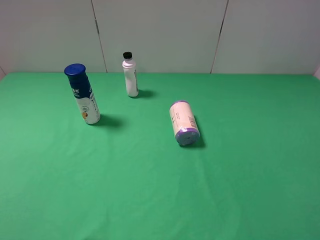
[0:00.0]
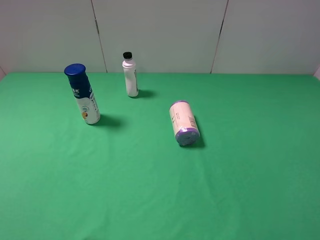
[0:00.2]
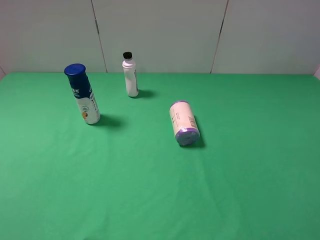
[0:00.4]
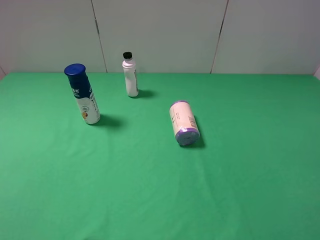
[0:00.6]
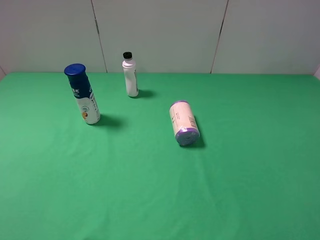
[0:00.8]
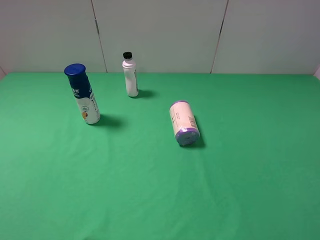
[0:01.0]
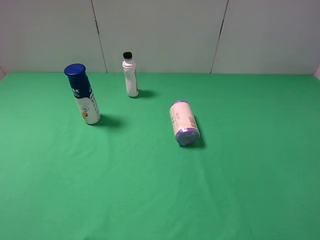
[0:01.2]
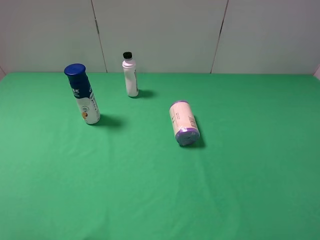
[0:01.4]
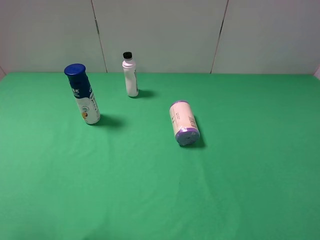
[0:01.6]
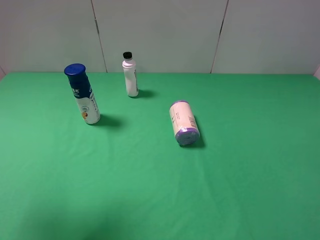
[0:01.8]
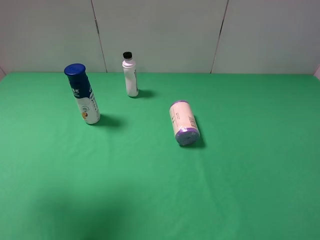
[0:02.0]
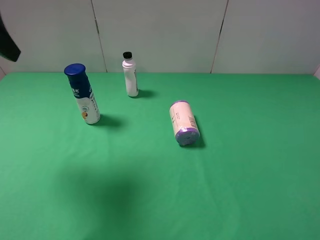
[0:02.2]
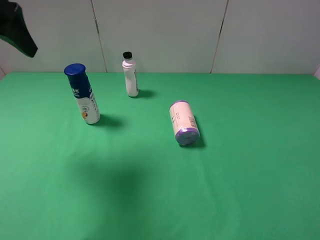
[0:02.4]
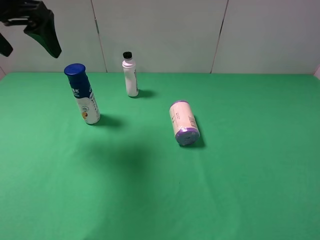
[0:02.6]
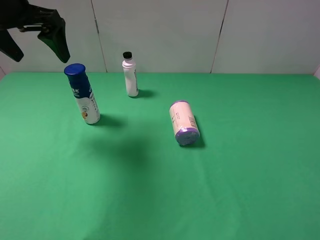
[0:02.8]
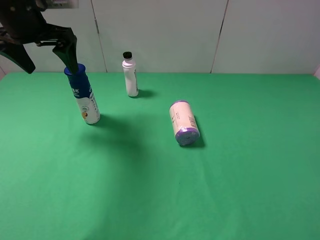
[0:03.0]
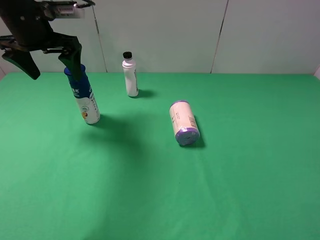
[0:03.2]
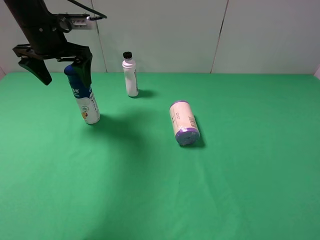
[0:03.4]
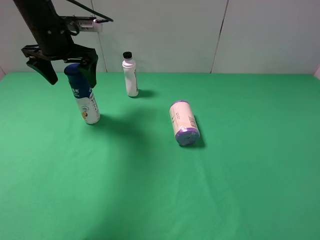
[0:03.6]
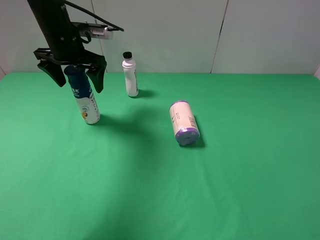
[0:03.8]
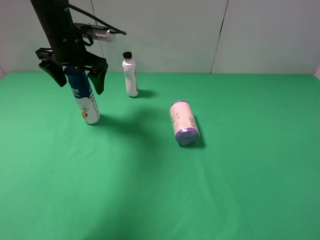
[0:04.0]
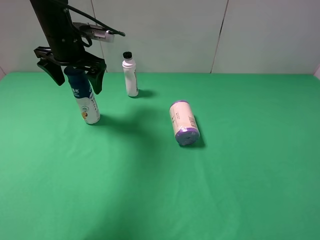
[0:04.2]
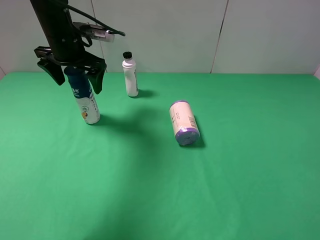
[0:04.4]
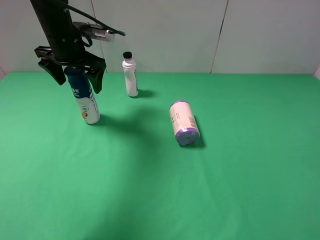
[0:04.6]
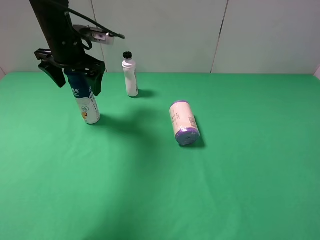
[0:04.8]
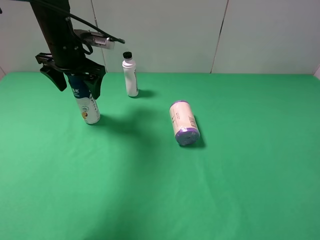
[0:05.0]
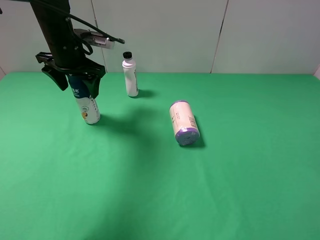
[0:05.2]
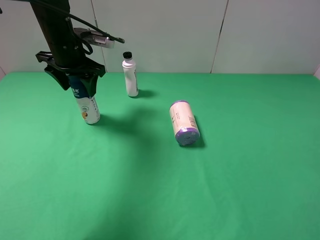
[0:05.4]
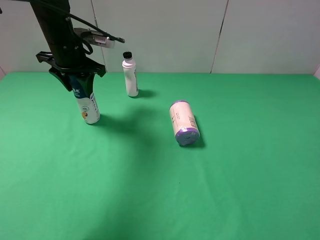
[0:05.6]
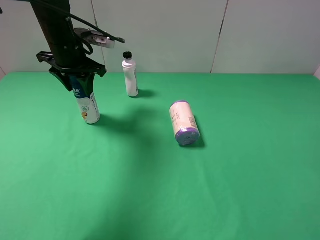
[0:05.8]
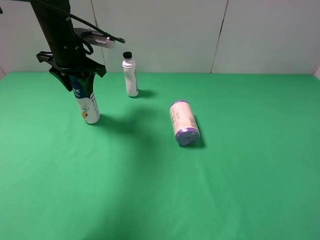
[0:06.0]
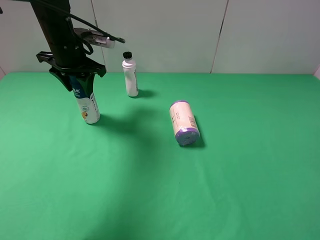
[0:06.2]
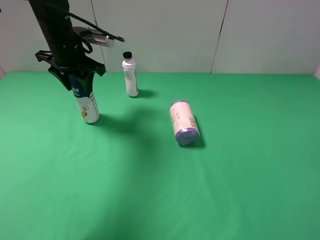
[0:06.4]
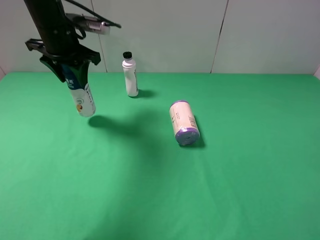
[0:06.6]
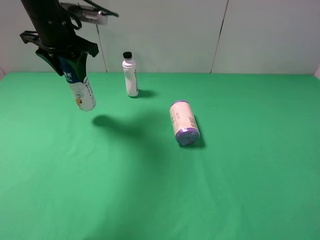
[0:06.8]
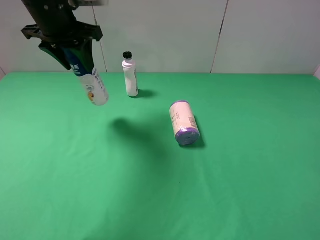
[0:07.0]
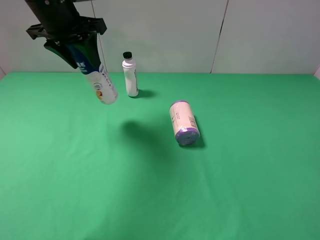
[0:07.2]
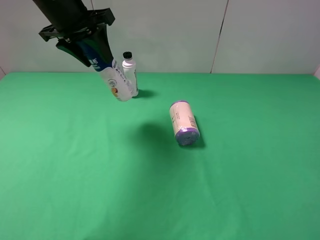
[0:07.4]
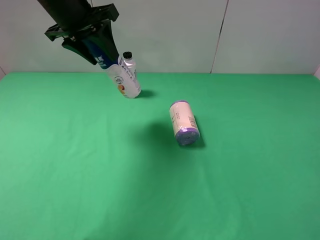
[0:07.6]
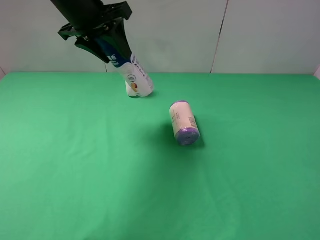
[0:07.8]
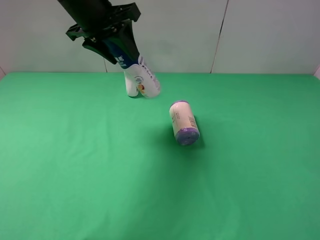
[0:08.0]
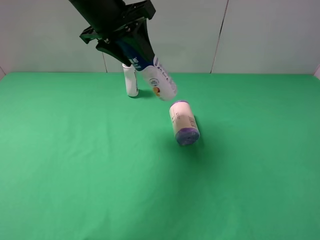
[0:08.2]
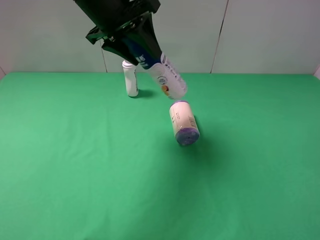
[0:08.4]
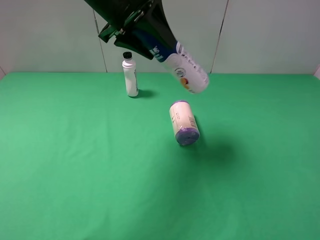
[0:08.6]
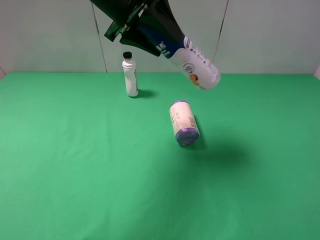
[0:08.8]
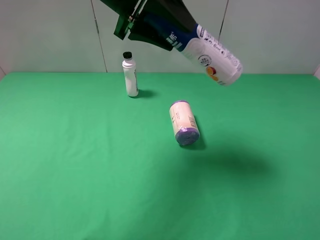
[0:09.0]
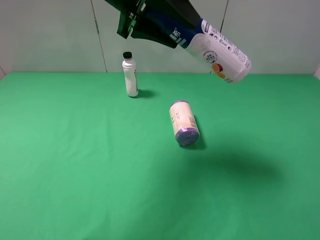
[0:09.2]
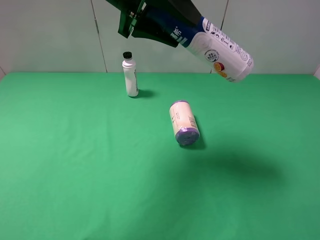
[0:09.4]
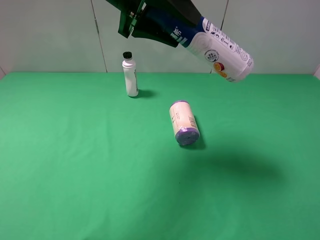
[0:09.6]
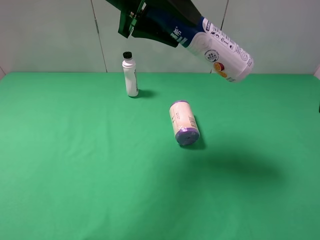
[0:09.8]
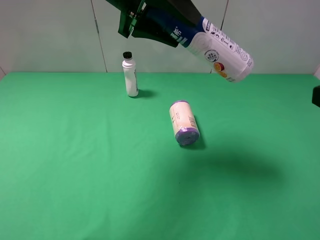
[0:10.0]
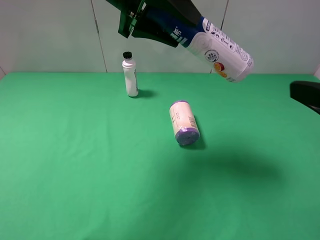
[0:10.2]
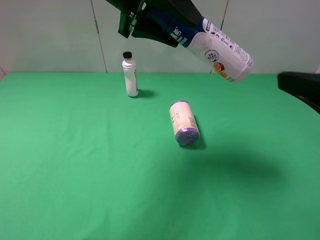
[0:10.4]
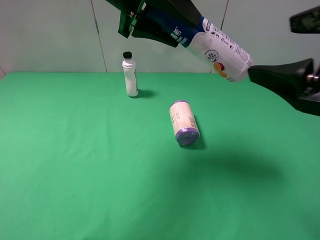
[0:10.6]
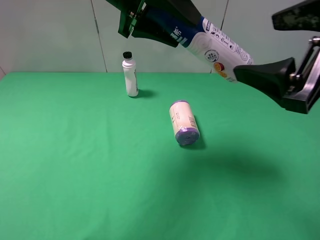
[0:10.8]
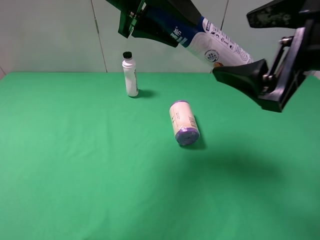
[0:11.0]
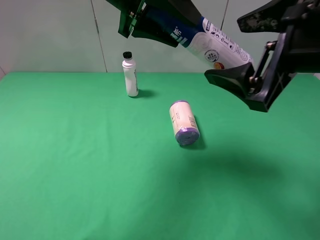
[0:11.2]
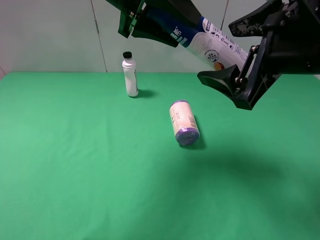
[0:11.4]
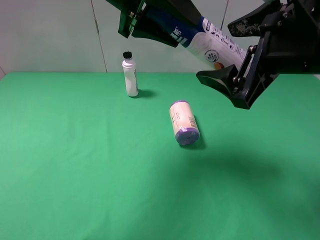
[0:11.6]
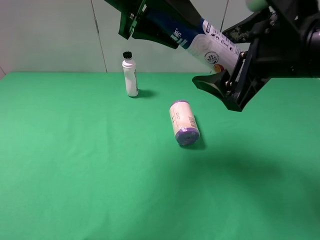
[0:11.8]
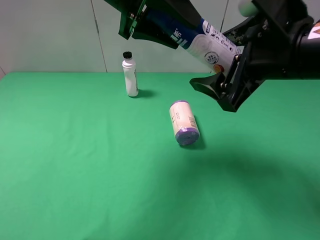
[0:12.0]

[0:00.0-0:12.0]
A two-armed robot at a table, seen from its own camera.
Task of the whole recording: use the left gripper to pick up the item and transfer it from the left gripper to the right gripper.
Step, 0:00.0 to 0:05.6: Use the left gripper to grab the yogurt on the left side of the table.
0:01.6 to 0:03.0: The left gripper moves forward, about 25 cm.
0:03.0 to 0:04.4: The left gripper goes about 5 cm downward.
0:04.4 to 0:06.0: The left gripper closes its fingers.
0:06.0 to 0:07.6: The left gripper shifts roughly 10 cm upward.
0:07.6 to 0:09.0: The left gripper moves to the right, approximately 10 cm.
0:09.0 to 0:10.4: The right gripper moves forward, about 10 cm.
0:10.4 to 0:12.0: The right gripper heads forward and to the left, covering some 10 cm.

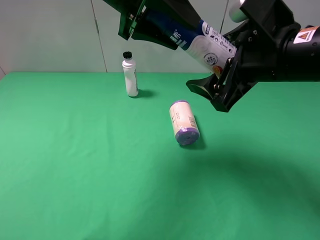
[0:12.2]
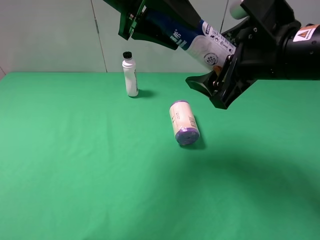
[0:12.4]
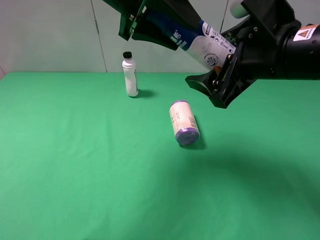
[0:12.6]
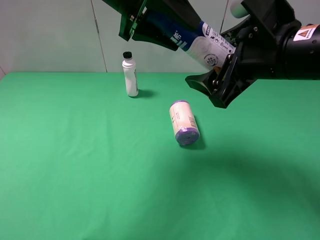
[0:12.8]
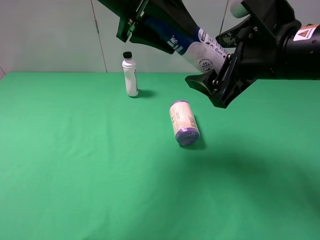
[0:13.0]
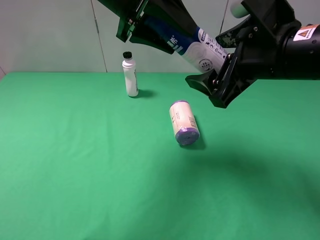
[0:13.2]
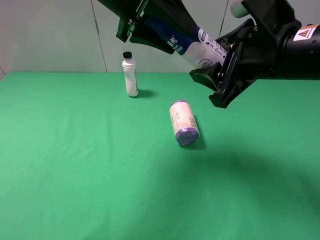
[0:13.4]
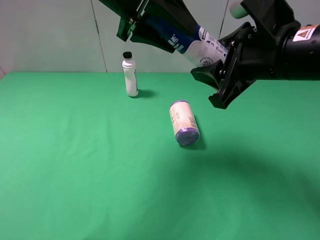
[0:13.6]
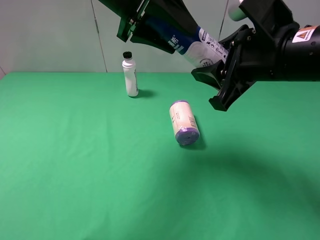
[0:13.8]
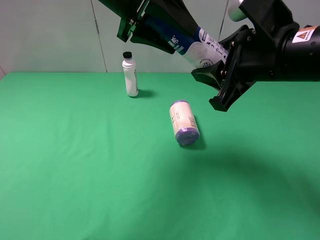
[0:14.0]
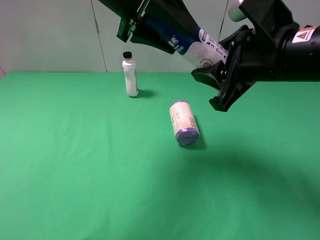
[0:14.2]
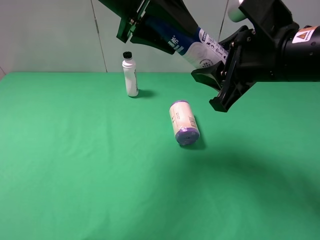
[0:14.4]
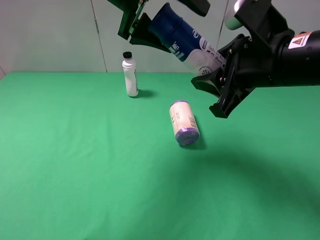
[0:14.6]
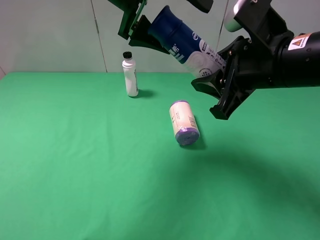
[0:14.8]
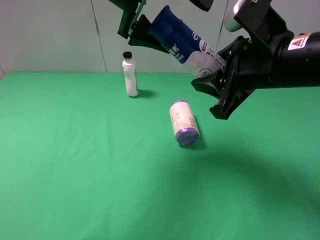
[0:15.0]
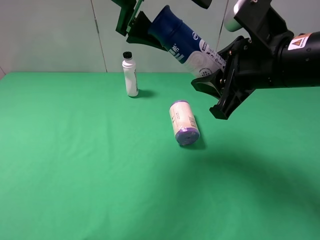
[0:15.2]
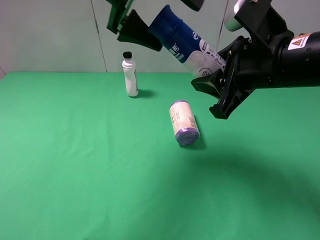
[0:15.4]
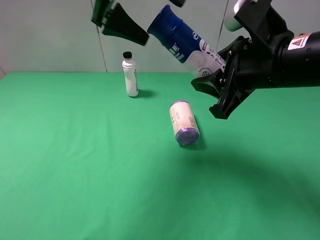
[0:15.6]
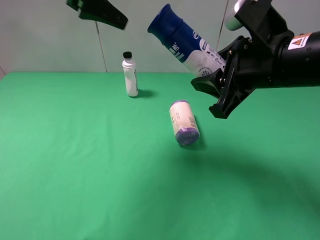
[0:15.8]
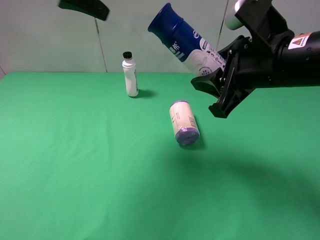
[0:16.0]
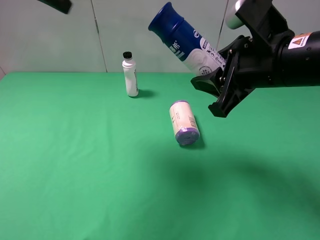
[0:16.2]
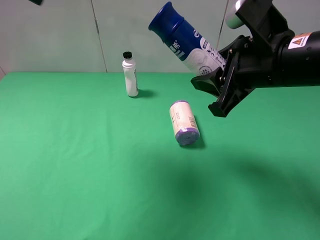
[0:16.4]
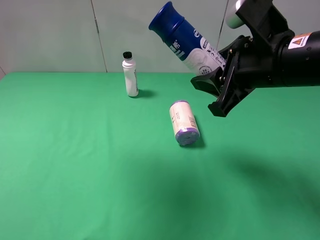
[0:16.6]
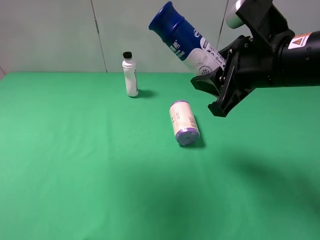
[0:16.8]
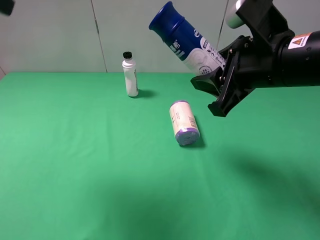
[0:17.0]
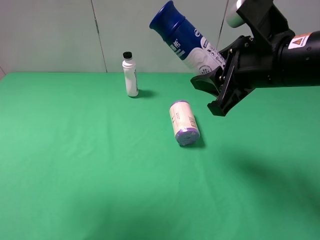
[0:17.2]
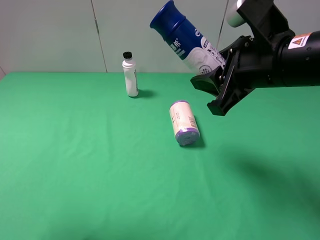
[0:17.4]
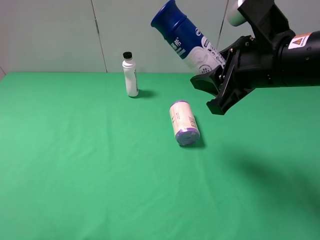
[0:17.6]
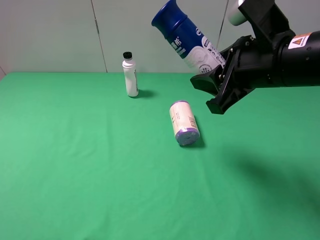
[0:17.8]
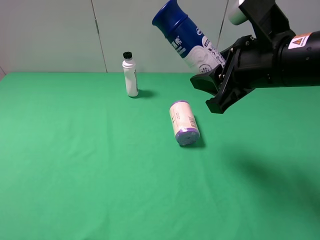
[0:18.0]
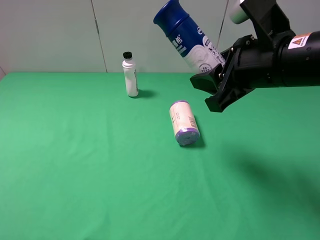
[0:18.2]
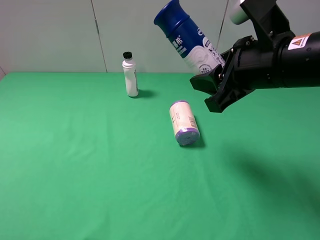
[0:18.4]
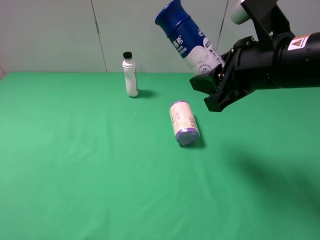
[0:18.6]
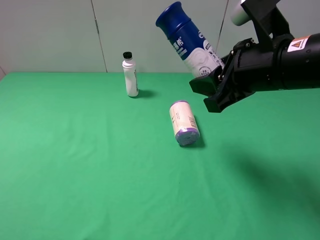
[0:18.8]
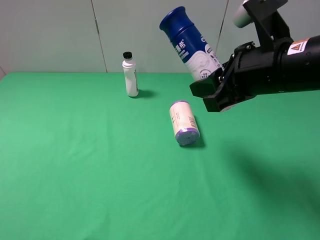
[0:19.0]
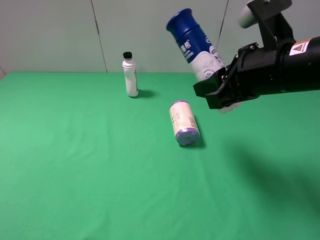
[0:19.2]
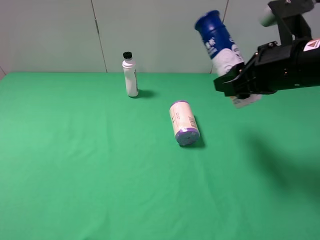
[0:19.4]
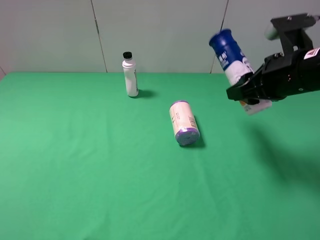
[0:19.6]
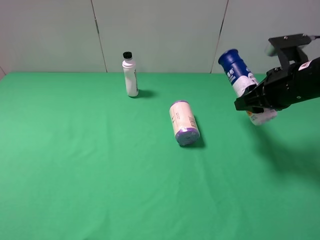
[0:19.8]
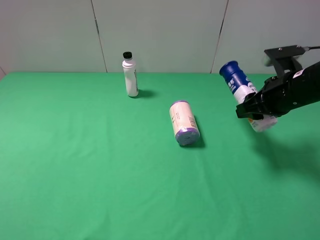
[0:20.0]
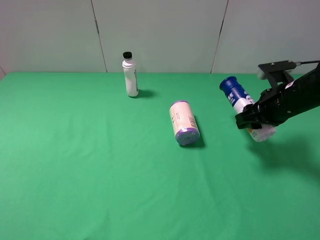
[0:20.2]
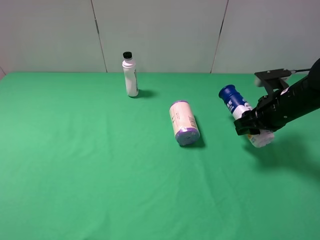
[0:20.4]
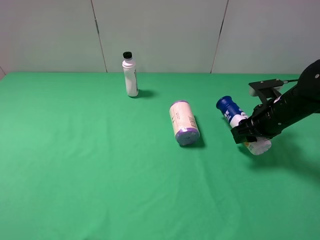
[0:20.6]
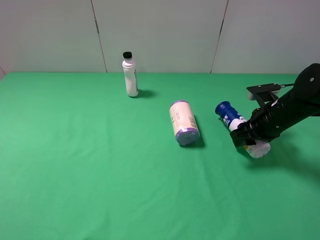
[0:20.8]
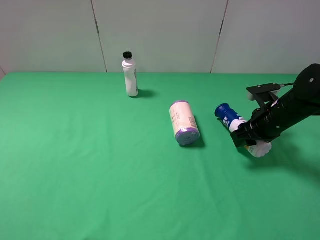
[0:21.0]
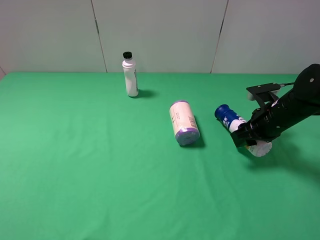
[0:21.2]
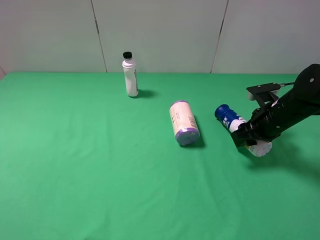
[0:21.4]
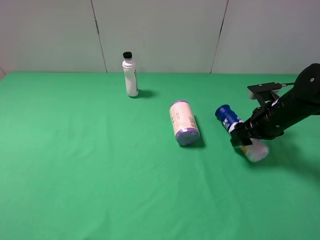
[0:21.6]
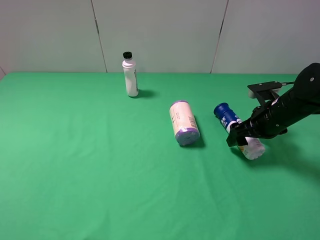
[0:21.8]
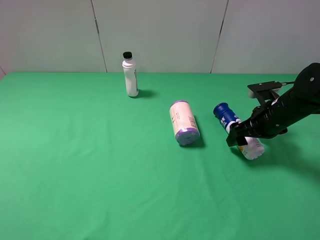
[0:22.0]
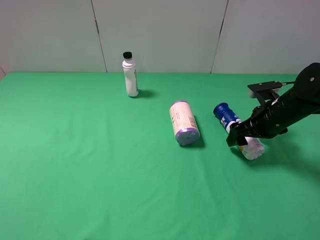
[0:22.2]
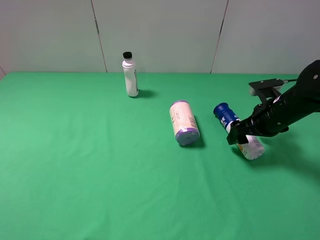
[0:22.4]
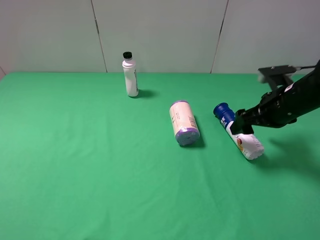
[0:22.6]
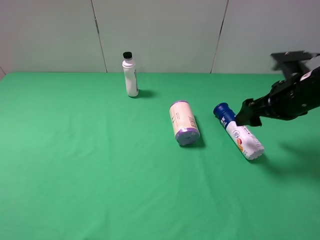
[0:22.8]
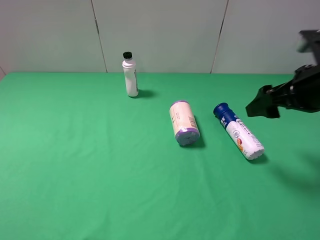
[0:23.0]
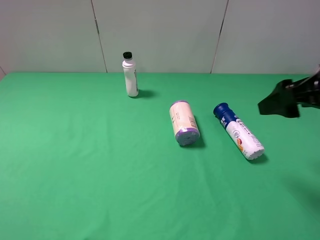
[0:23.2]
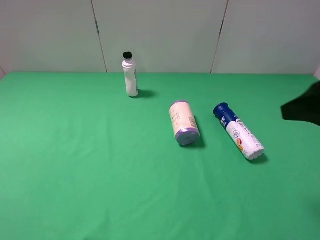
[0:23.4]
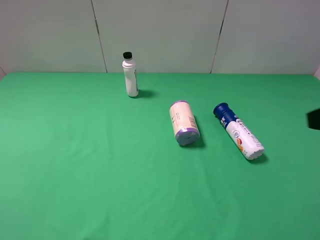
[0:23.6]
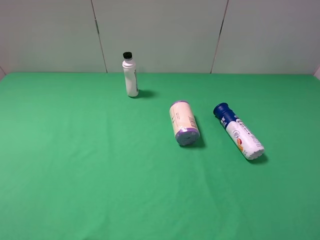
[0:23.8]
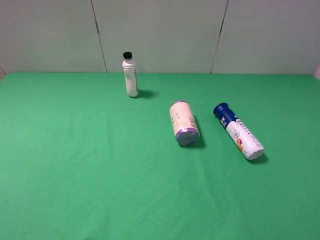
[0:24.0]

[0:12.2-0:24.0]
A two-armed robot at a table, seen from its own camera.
Task of the whole recording: use the left gripper to pick up the item and transfer it from the left gripper to the right gripper.
Step, 0:12.2 to 0:14.6: Pass the yogurt to the right gripper.
Step, 0:14.8 to 0:21.8: The right gripper places yogurt on the right side of the table.
0:12.2 to 0:13.6: The right gripper closes up.
0:13.6 to 0:15.2: The left gripper opens.
0:15.2 to 0:16.6: The left gripper moves to the left, upward and backward, approximately 20 cm.
0:16.6 to 0:18.2: The left gripper travels backward and downward by about 30 cm.
0:18.2 to 0:19.6: The right gripper goes some 5 cm to the right.
0:19.6 to 0:21.0: The right gripper heads downward, covering some 10 cm.
0:21.0 to 0:22.6: The right gripper is displaced upward by approximately 5 cm, and opens its fingers.
0:22.6 to 0:24.0: The right gripper goes some 25 cm backward and upward.
